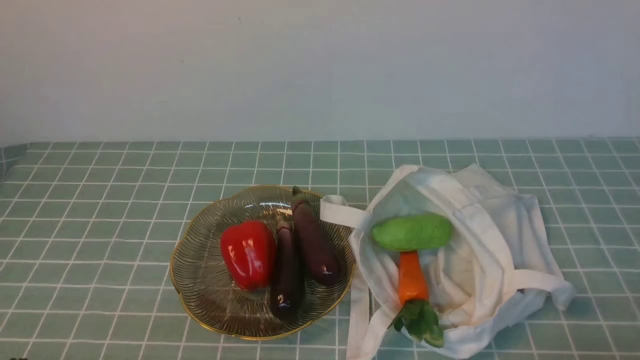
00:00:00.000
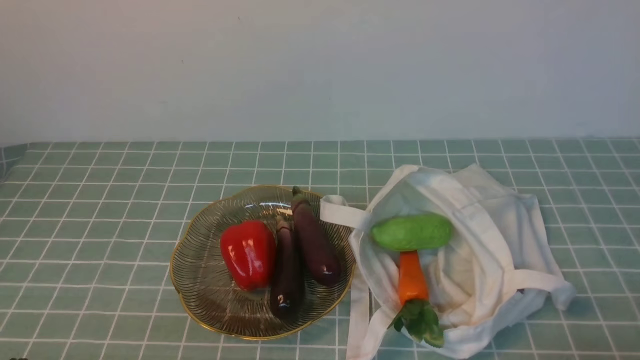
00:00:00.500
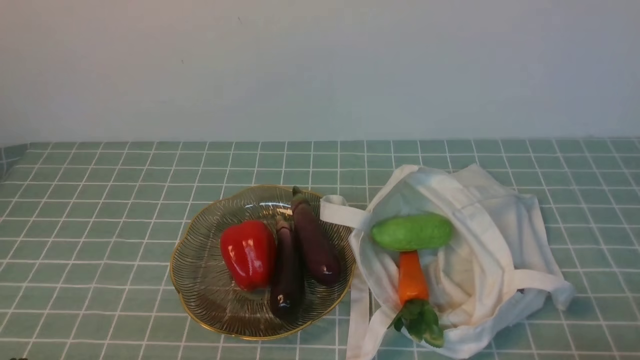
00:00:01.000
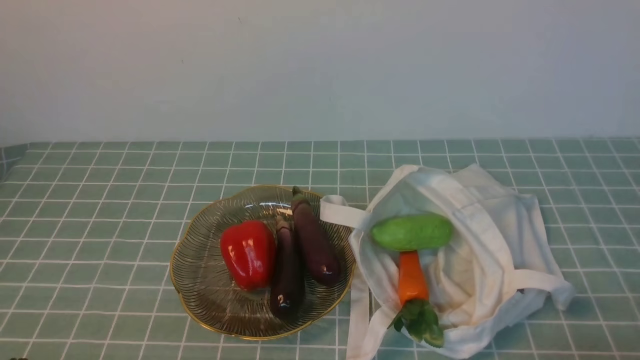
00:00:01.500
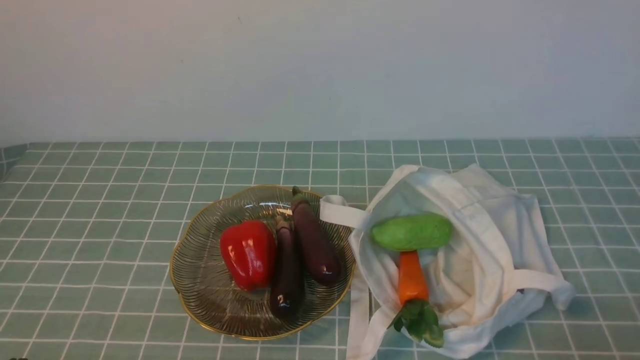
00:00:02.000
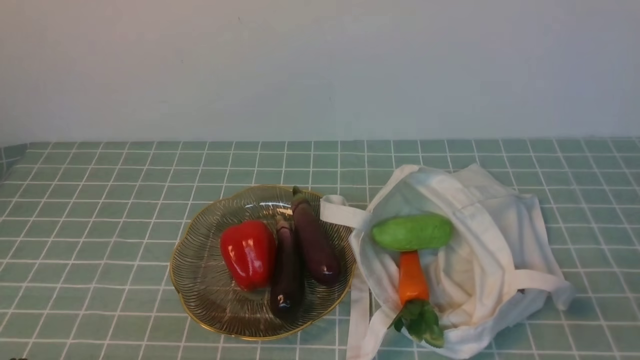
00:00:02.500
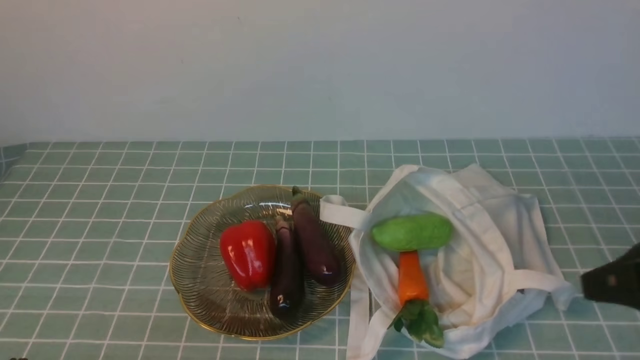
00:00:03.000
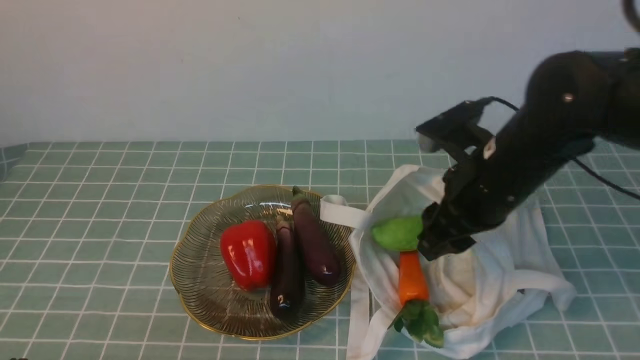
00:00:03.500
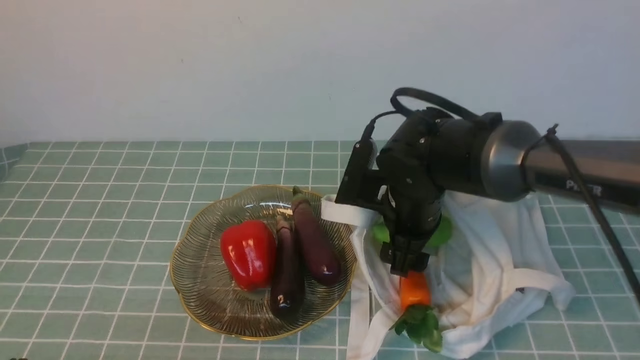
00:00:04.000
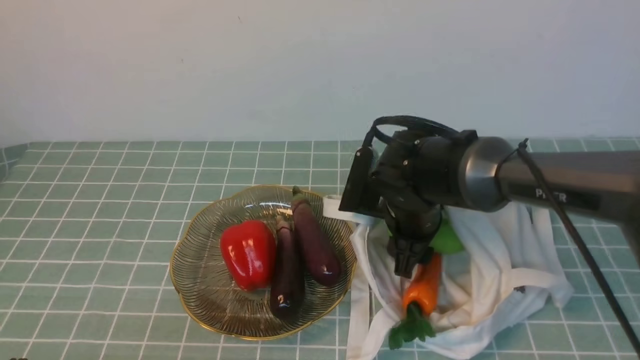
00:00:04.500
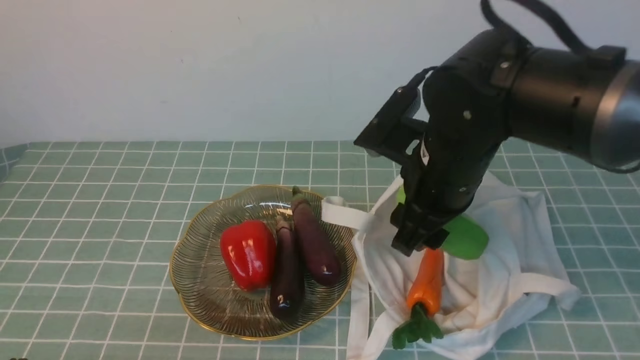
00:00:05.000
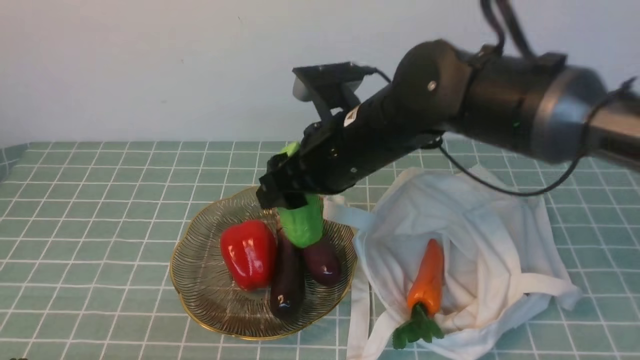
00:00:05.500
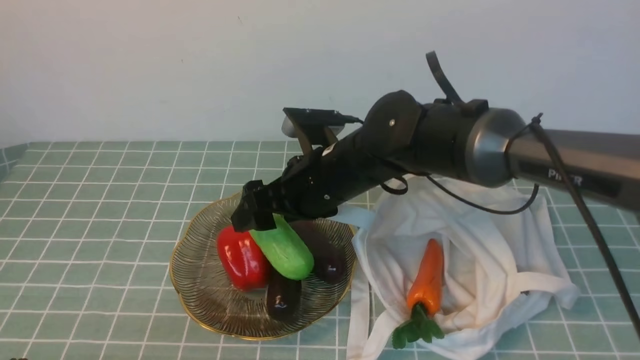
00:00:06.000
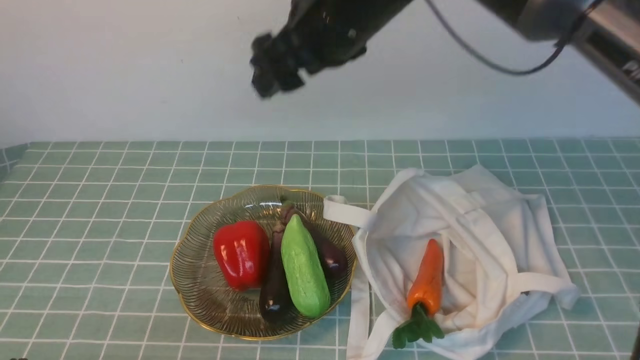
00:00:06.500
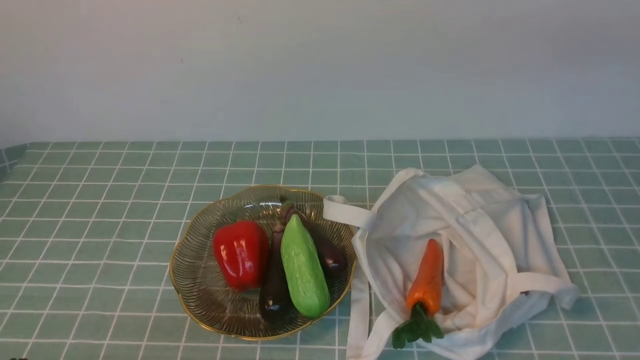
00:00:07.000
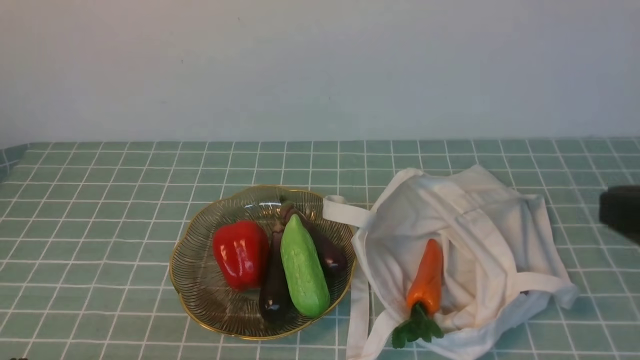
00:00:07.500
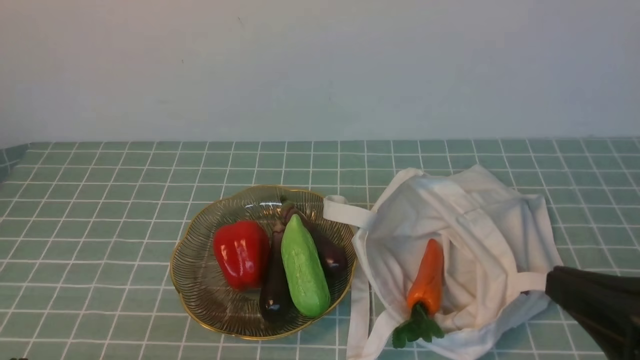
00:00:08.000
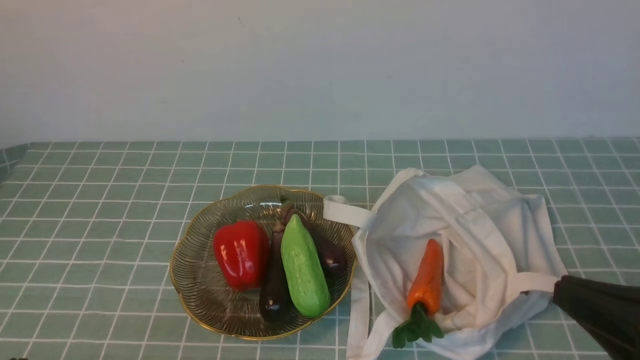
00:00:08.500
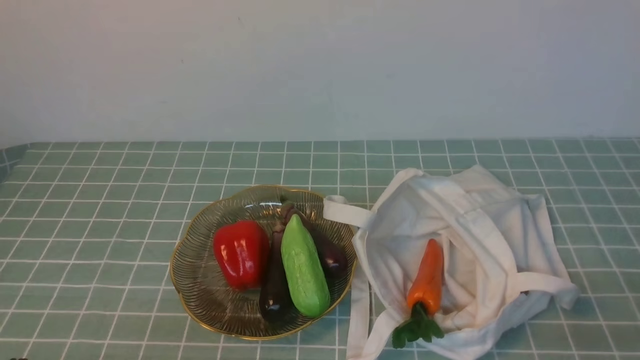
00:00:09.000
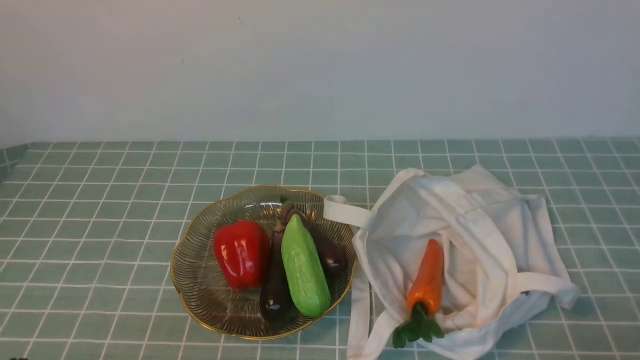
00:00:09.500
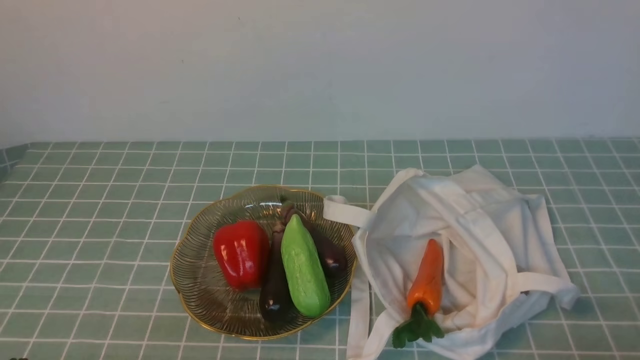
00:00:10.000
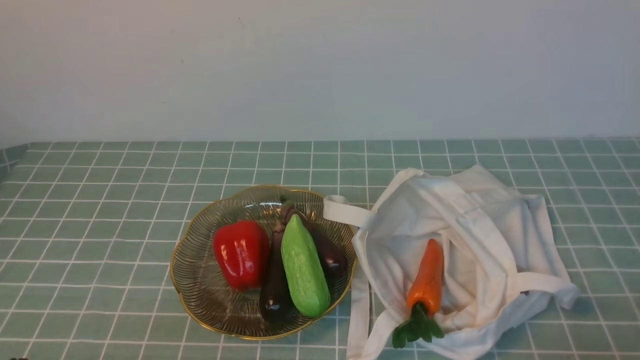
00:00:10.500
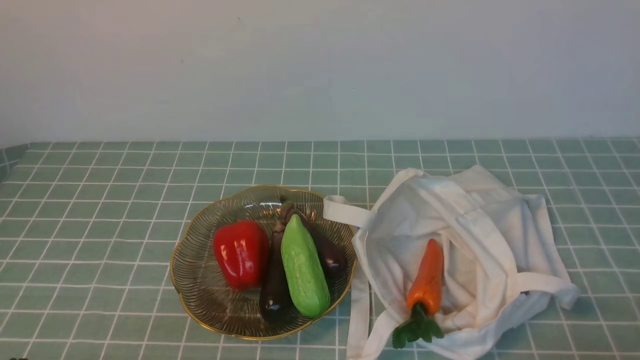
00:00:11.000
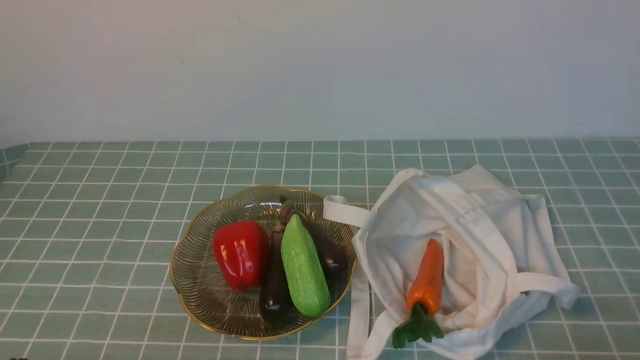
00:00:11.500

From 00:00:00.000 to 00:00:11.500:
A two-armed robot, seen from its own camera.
Task of the whole recording: take vegetables from cloth bag on blue coffee tablecloth place on plate.
Step, from 00:00:00.000 to 00:00:04.000: Grasp the bitter melon with right gripper.
Step, from 00:00:04.500 to 00:00:06.000: Place the bitter melon on the plate with right gripper.
From 00:00:02.000 to 00:00:04.000: The right gripper goes approximately 35 cm forward and to the left, and opens its fingers.
From 00:00:04.000 to 00:00:06.000: The right gripper heads to the left and upward, covering some 10 cm.
From 00:00:06.000 to 00:00:07.500: The right gripper shifts about 35 cm to the right, backward and upward, and closes its fingers.
From 00:00:07.500 to 00:00:09.500: The right gripper heads downward, covering roughly 20 cm.
